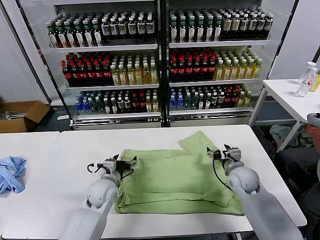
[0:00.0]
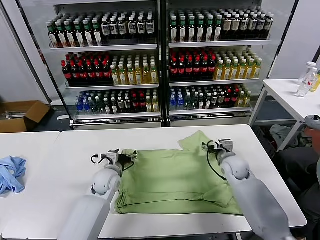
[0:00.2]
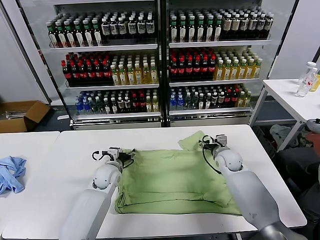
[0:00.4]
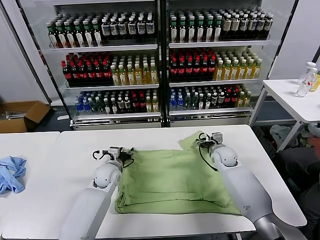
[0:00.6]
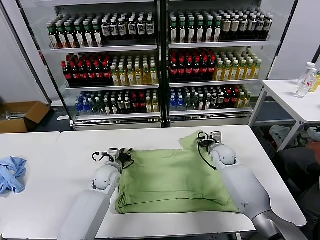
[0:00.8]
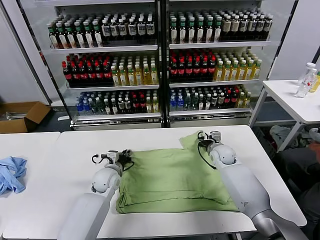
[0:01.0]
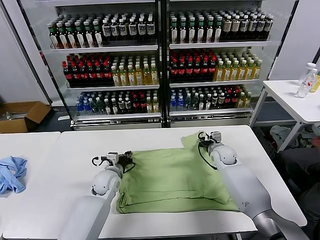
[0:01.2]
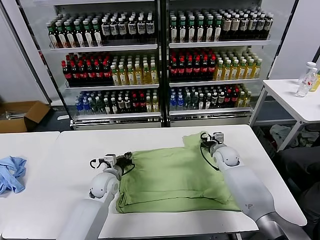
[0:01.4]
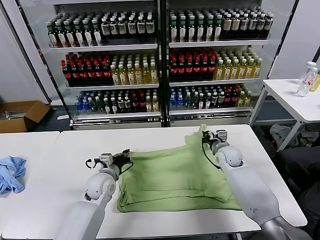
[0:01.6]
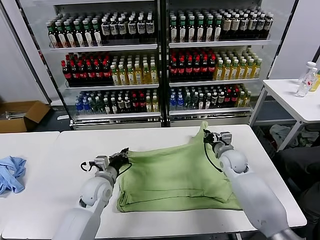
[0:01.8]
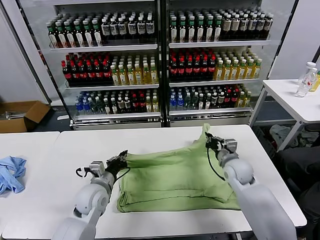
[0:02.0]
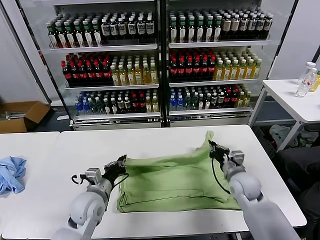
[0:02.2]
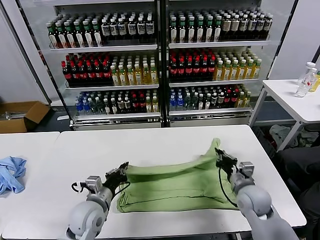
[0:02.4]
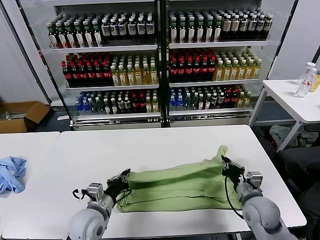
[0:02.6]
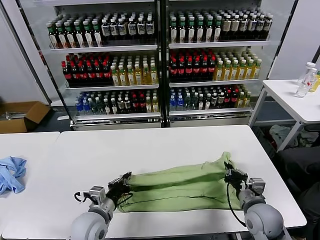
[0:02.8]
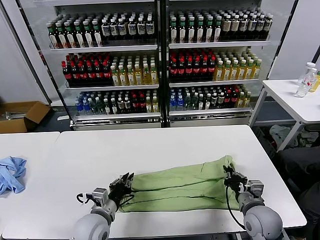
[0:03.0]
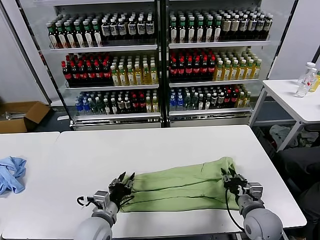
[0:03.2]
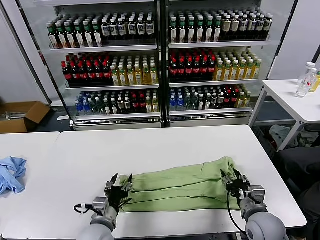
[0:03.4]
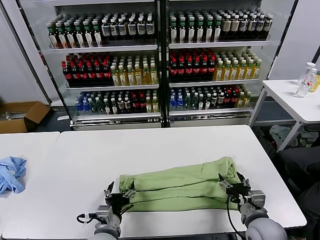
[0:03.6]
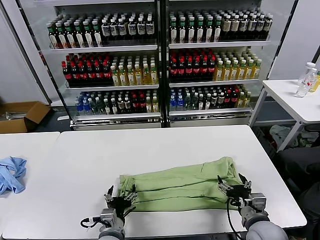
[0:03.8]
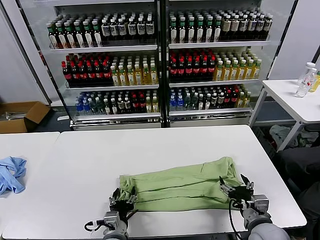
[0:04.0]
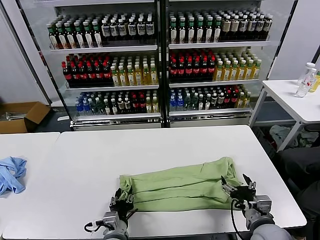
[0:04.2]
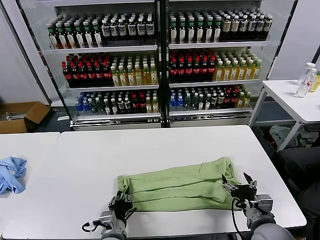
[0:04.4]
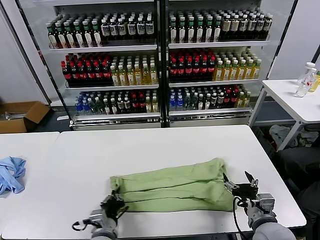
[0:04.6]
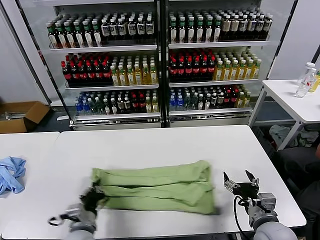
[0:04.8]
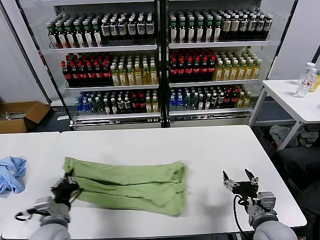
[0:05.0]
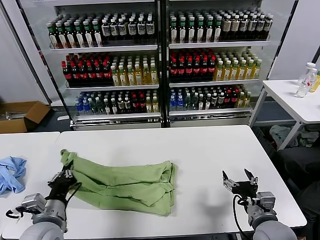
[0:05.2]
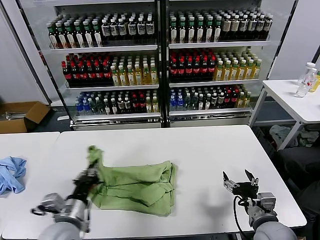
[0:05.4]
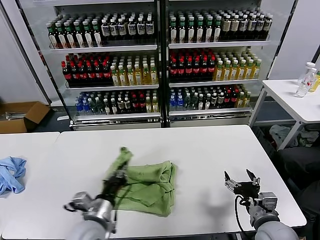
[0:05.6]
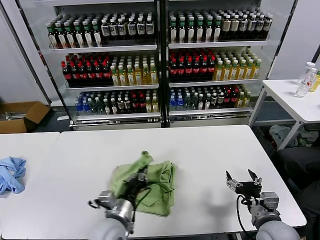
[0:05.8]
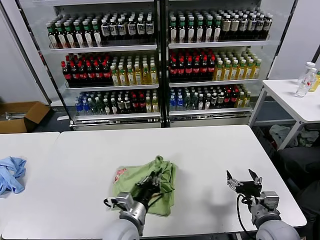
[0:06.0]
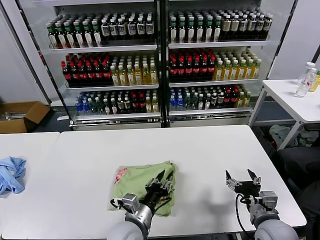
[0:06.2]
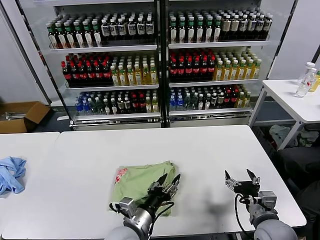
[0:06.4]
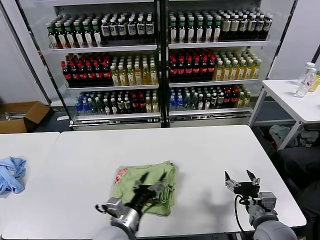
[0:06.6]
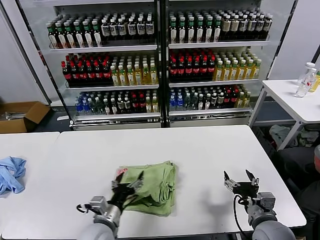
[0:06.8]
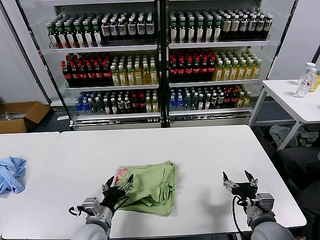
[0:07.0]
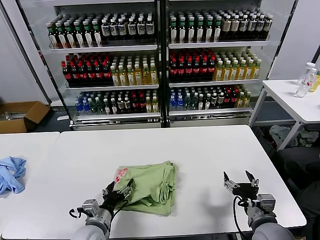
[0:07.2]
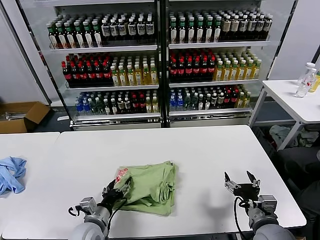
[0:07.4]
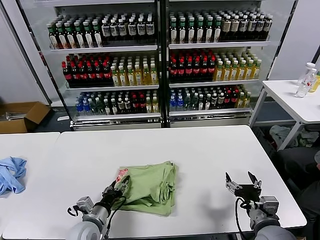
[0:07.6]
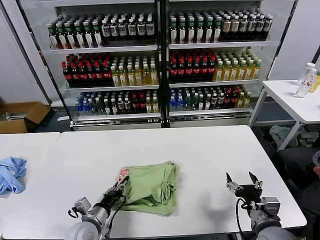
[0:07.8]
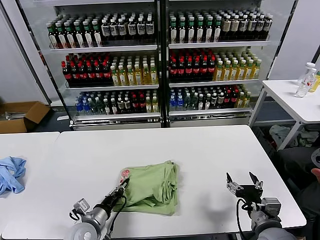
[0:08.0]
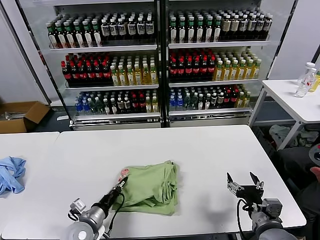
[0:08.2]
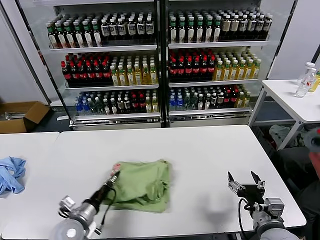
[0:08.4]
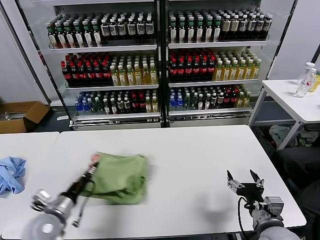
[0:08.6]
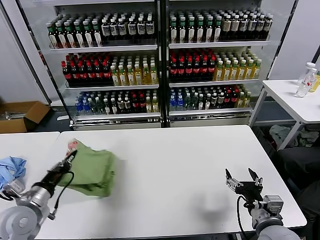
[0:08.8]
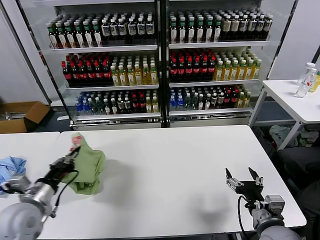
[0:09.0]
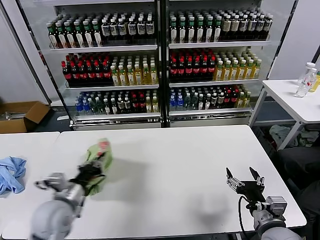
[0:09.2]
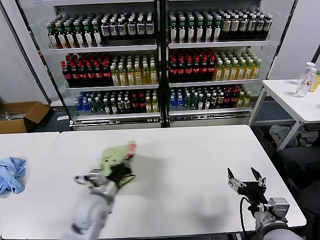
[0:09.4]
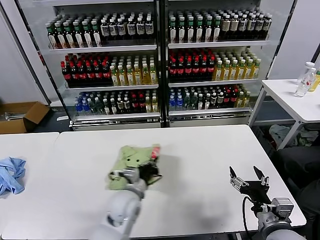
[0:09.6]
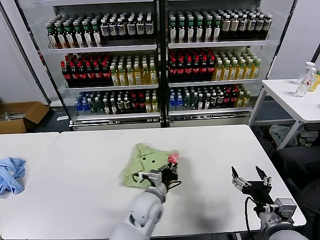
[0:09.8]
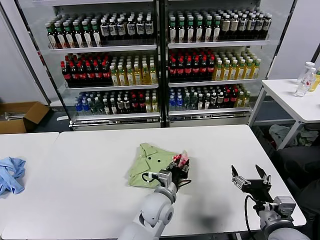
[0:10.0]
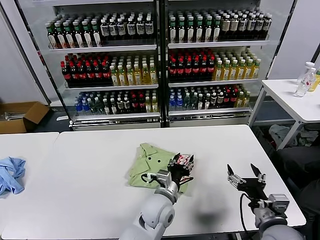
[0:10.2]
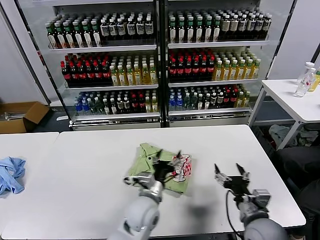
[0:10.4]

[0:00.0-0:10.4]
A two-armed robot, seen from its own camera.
Task of the whole recording: fold and organize the clothes.
Step, 0:00.0 to 0:01.2: use both grippers simultaneously to clamp the upper edge of the clothing fabric.
Step, 0:01.4 to 0:03.2: use both grippers to drag the upper edge of the fabric backward and fold it over the lower edge.
Step, 0:03.4 to 0:04.2: use the left gripper to clamp the left edge of the fabric.
Step, 0:04.4 to 0:06.2: use the left gripper to drag the left edge of the fabric to the left and folds it over the right edge.
Step, 0:06.4 to 0:10.0: Flip the folded clothes over with left gripper.
0:00.0 to 0:01.4: The right gripper heads forward, covering roughly 10 cm, and closes its fingers. The left gripper closes up.
0:01.4 to 0:03.0: The left gripper goes approximately 15 cm backward, while the right gripper goes about 25 cm backward.
0:03.0 to 0:04.4: The left gripper is displaced to the right and backward by roughly 10 cm, and opens, then closes again. The right gripper moves backward, about 5 cm, and opens its fingers.
0:04.4 to 0:06.0: The left gripper is displaced upward by roughly 5 cm, and goes to the left and returns, roughly 15 cm each way.
0:06.0 to 0:07.4: The left gripper shifts some 10 cm to the left and downward, and opens up.
0:07.4 to 0:09.0: The left gripper moves upward and to the left, about 20 cm, and closes up.
0:09.0 to 0:10.4: The left gripper heads to the right, covering about 35 cm, and opens its fingers.

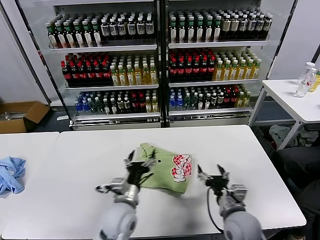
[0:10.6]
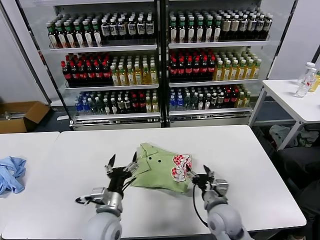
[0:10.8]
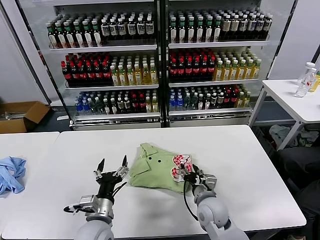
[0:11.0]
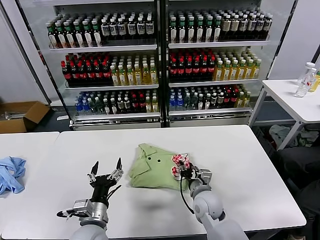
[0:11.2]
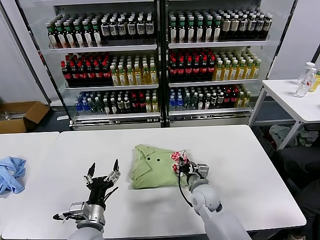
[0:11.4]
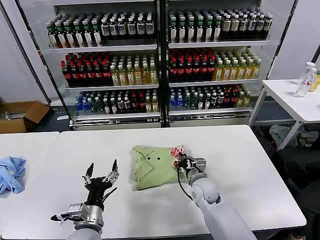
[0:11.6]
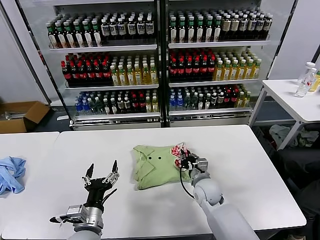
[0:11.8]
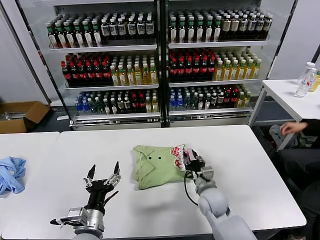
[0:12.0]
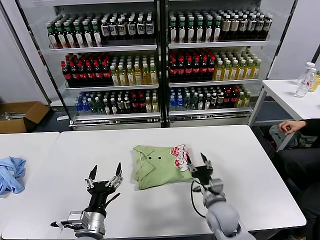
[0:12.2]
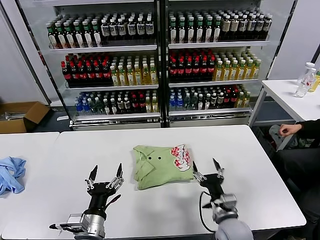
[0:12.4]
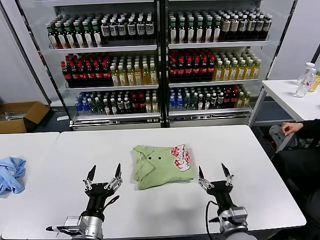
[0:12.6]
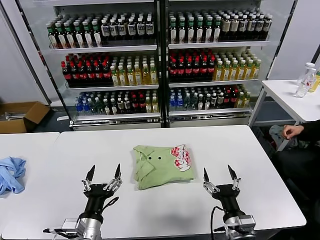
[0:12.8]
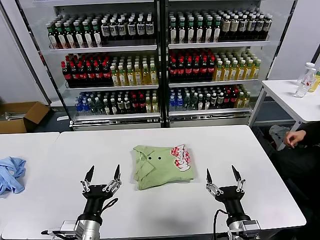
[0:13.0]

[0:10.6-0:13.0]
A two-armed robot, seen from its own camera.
Task of the whole recording: fold and organize the clothes.
Step, 0:10.6 to 0:12.0: Drag the clothes to the center of the table.
0:10.6 to 0:11.8: The left gripper travels to the left and backward by roughly 15 cm; the right gripper heads forward and to the left, covering approximately 15 cm, and closes up.
0:11.8 to 0:13.0: The right gripper travels backward by approximately 25 cm, and opens its fingers, while the left gripper moves about 5 cm.

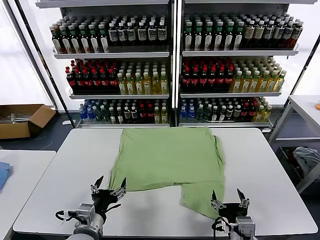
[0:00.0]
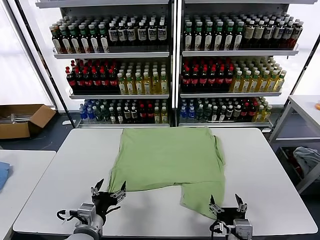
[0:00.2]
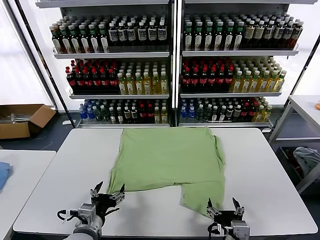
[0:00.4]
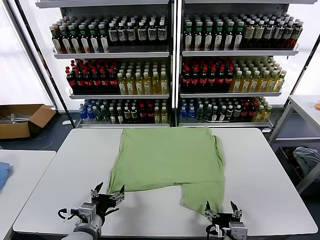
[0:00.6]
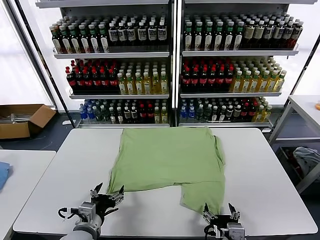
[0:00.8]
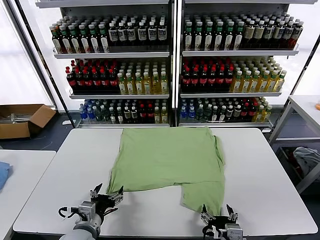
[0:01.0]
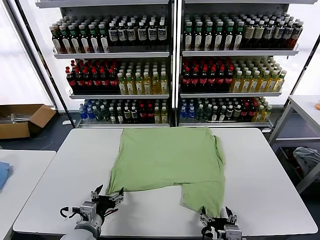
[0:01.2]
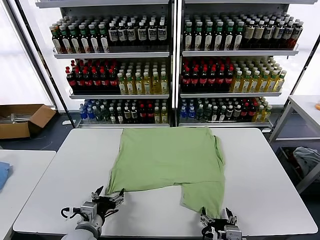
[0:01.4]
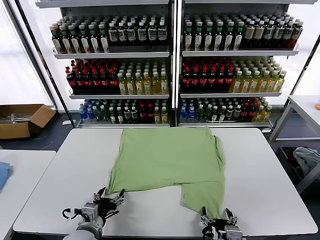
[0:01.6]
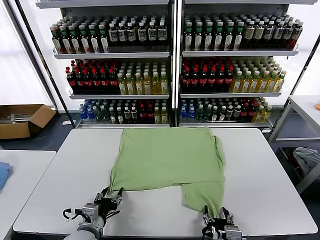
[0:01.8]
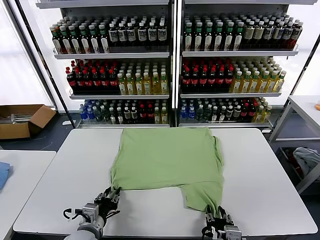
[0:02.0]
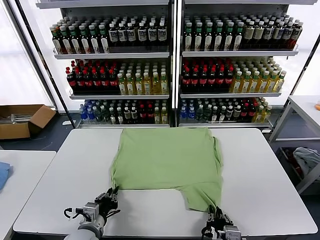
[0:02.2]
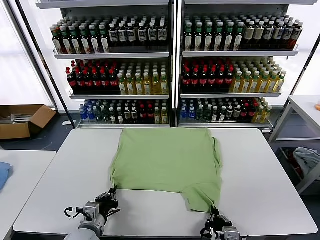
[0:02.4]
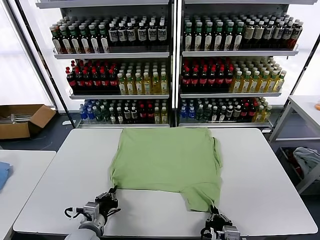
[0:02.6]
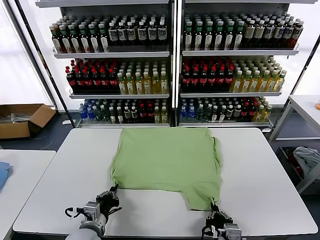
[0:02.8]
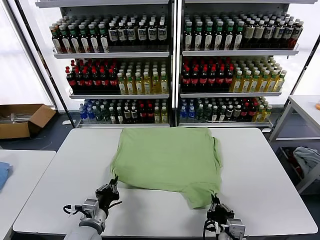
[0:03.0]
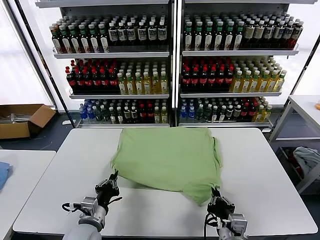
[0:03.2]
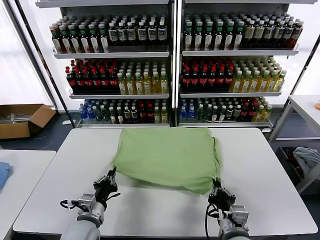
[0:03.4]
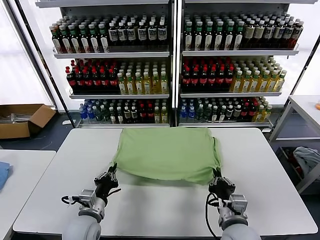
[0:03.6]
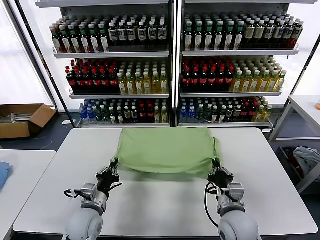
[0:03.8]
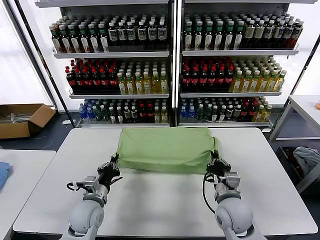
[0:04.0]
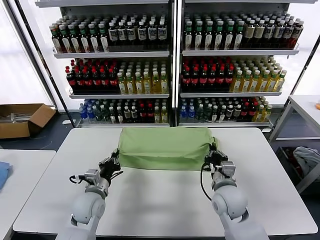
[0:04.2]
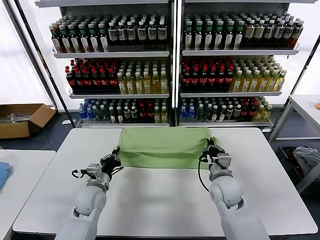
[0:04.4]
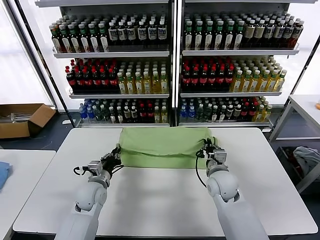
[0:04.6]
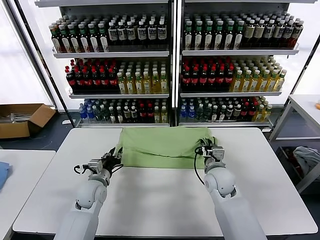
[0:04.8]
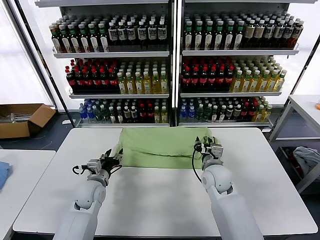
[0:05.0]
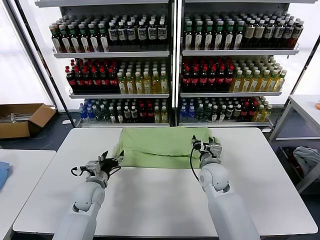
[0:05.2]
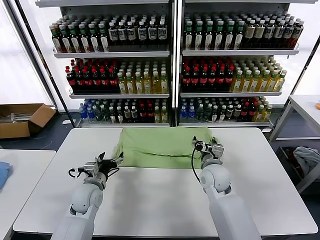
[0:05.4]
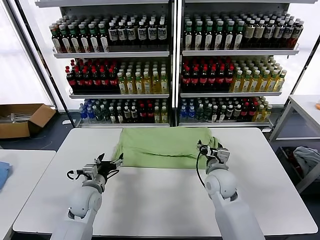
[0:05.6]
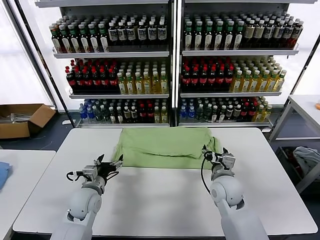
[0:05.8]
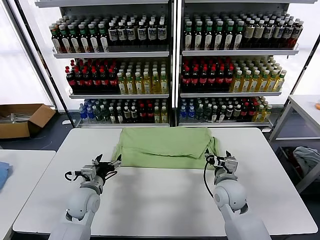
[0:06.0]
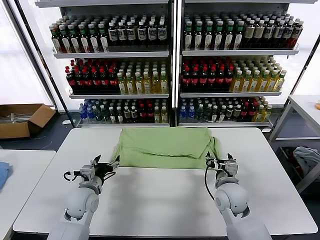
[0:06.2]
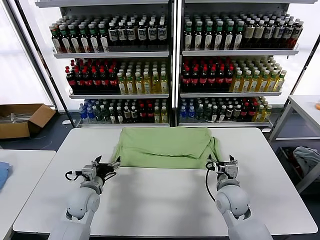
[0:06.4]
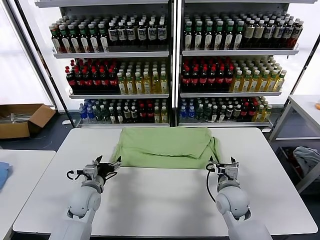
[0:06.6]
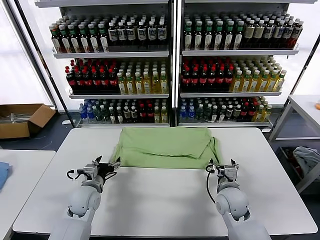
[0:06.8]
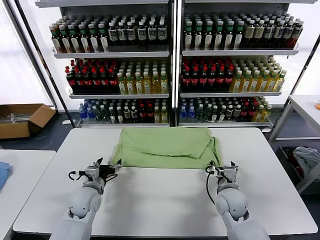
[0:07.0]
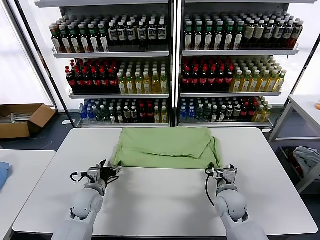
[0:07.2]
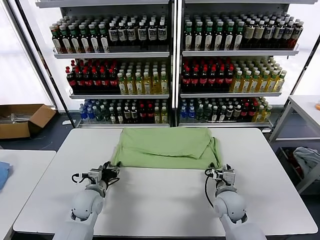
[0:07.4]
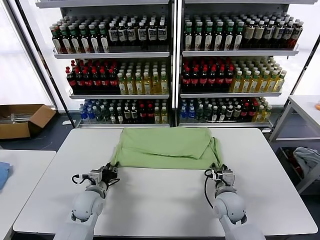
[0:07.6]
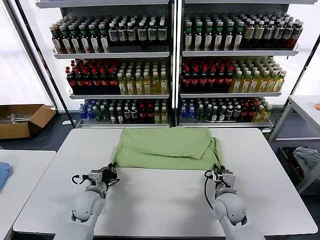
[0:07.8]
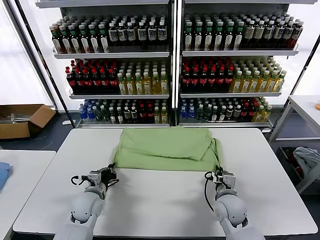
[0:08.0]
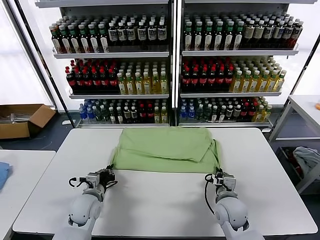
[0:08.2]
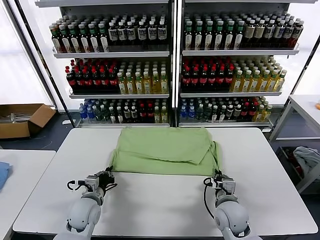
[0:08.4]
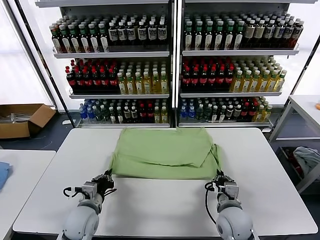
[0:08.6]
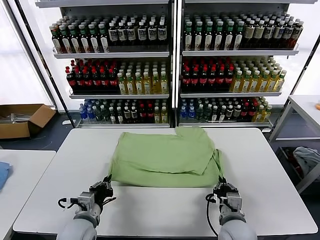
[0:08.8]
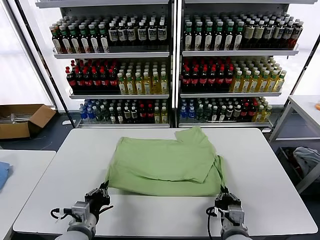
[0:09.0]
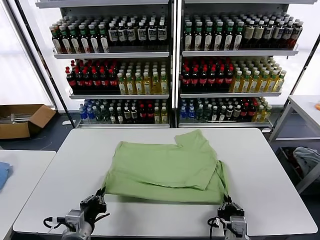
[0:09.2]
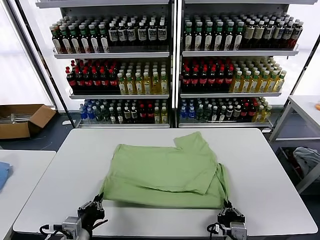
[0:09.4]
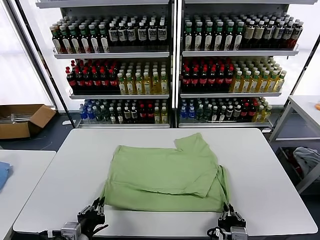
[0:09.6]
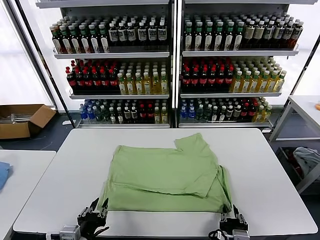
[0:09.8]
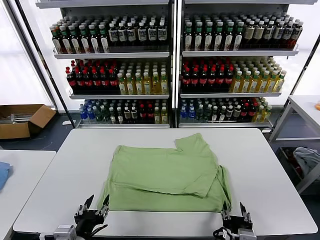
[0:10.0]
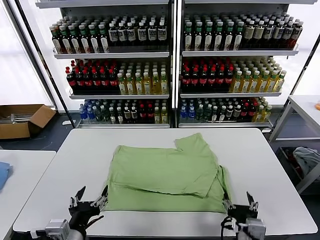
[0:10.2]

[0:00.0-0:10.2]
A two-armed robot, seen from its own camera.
Task of the whole recording: fold and organize the clothes.
Step, 0:00.0 to 0:02.4: use both grippers simultaneously to clamp the lower edge of the clothing fabric.
Step, 0:02.6 to 0:05.2: use both grippers to drag the lower edge of the fabric forward and fold it over the upper edge.
Step, 0:05.4 to 0:10.0: Drag the clothes downward with both gripper.
0:01.4 to 0:03.0: The left gripper closes its fingers. The right gripper closes its fingers.
0:03.0 to 0:04.4: The right gripper is displaced forward by approximately 20 cm. Meanwhile the left gripper goes approximately 15 cm forward.
0:04.4 to 0:05.8: The right gripper opens. The left gripper opens its fingers.
0:05.8 to 0:07.2: The right gripper heads downward, covering some 5 cm.
0:07.2 to 0:08.8: The two grippers go some 10 cm backward. The right gripper closes; the left gripper closes its fingers.
0:08.8 to 0:10.2: The left gripper travels backward and upward by approximately 15 cm, and opens up. The right gripper shifts approximately 5 cm upward, and opens up.
